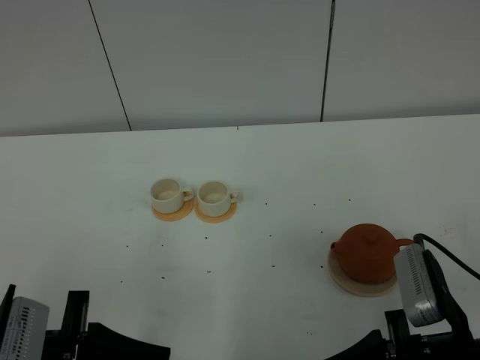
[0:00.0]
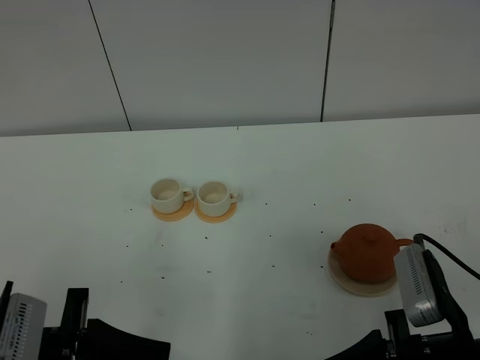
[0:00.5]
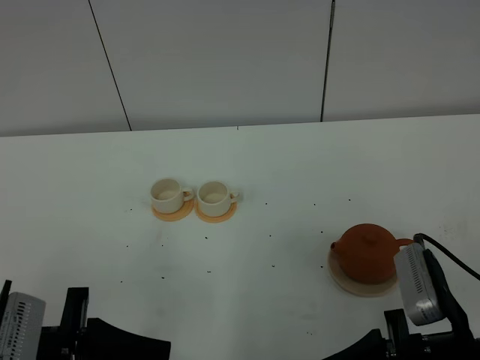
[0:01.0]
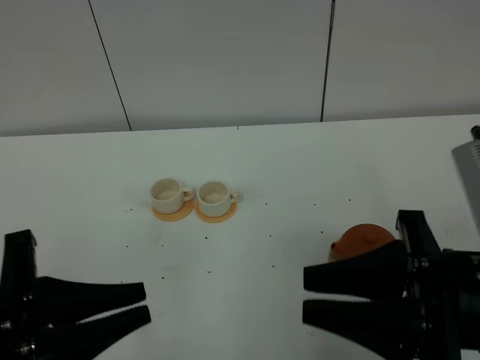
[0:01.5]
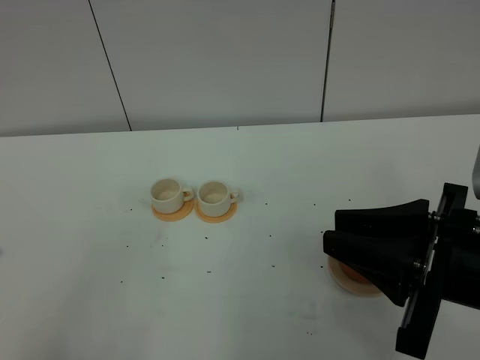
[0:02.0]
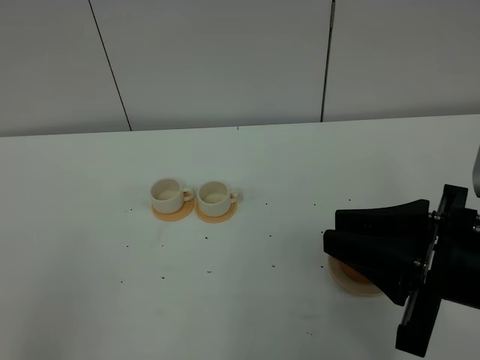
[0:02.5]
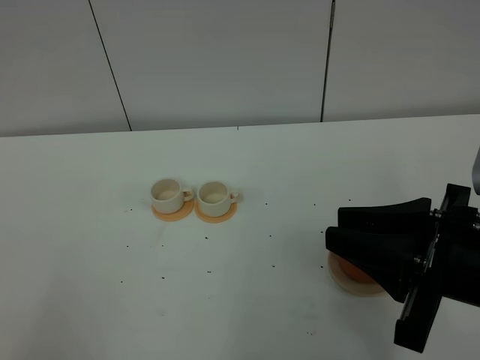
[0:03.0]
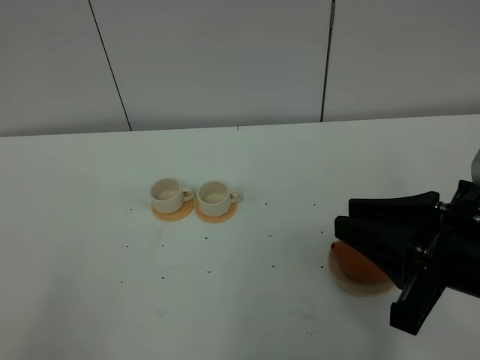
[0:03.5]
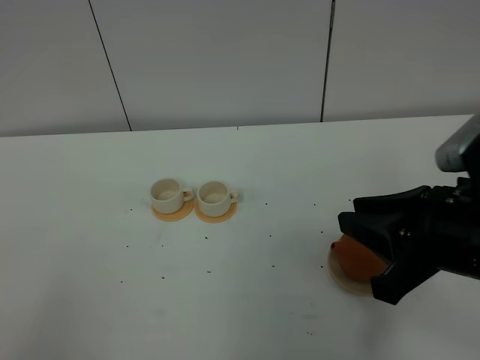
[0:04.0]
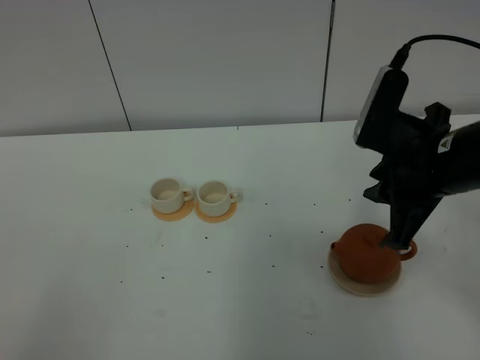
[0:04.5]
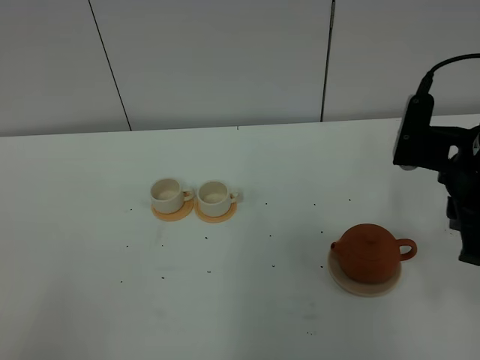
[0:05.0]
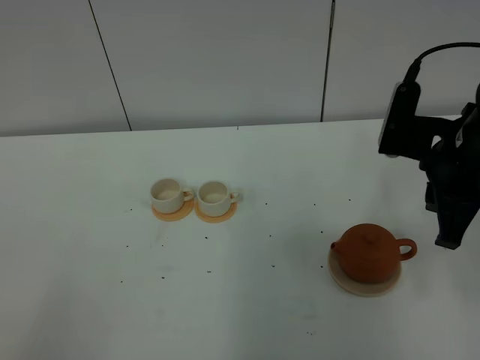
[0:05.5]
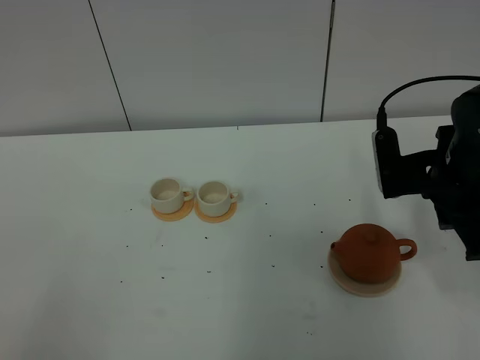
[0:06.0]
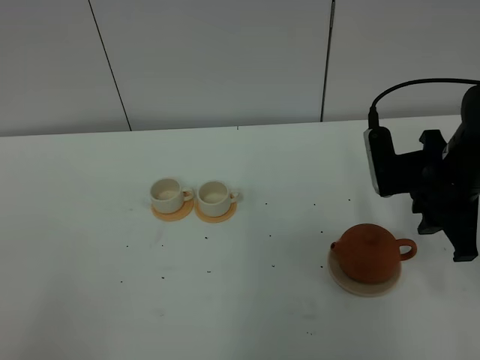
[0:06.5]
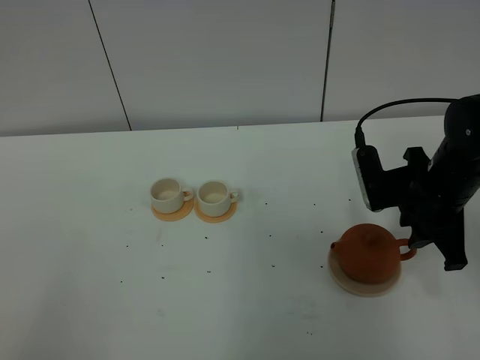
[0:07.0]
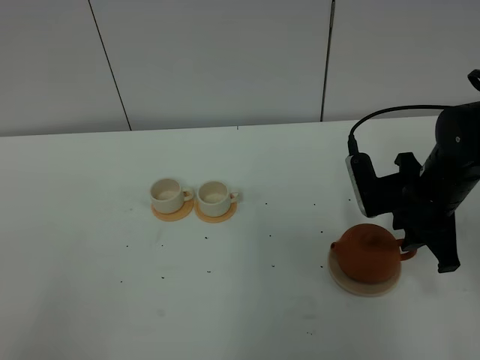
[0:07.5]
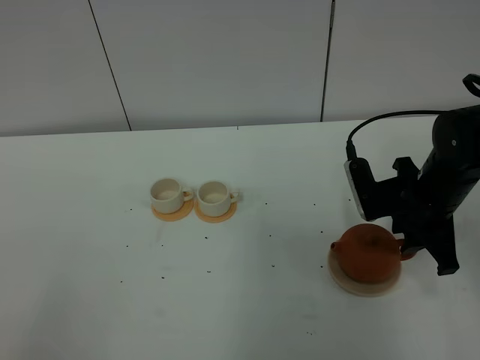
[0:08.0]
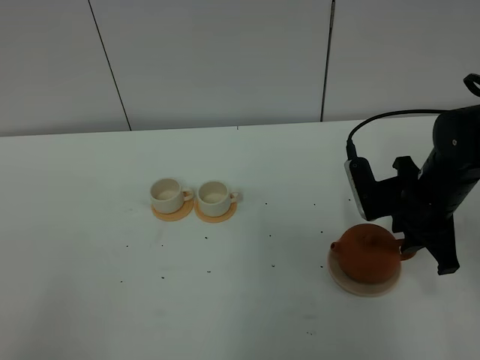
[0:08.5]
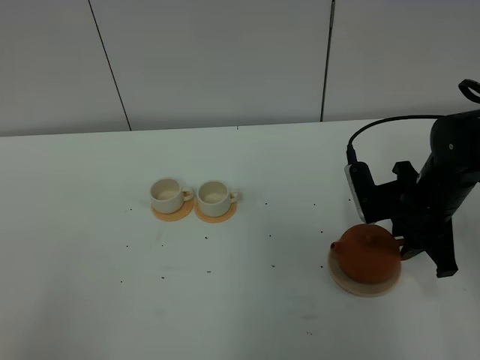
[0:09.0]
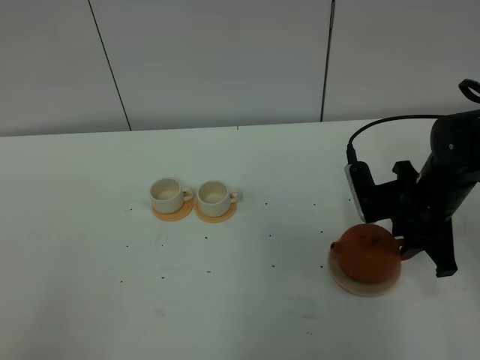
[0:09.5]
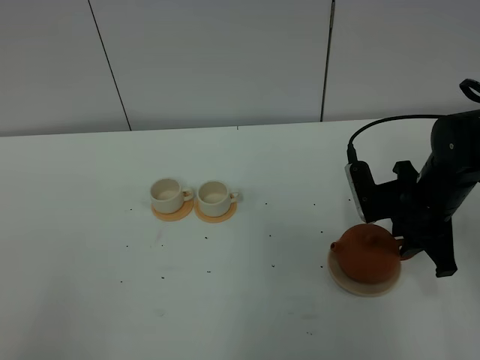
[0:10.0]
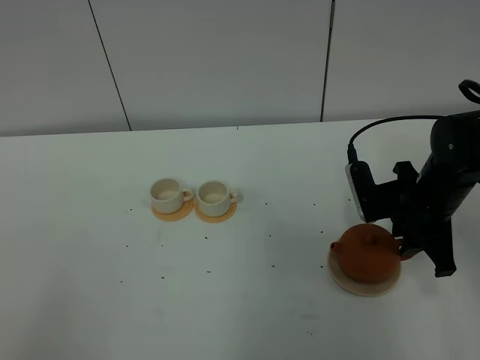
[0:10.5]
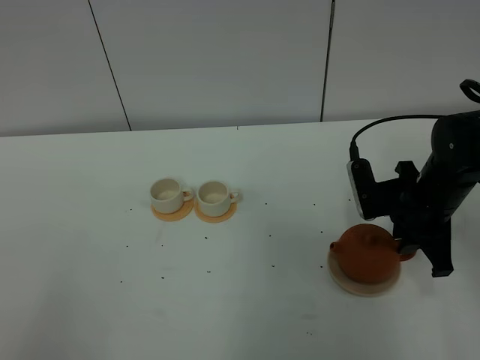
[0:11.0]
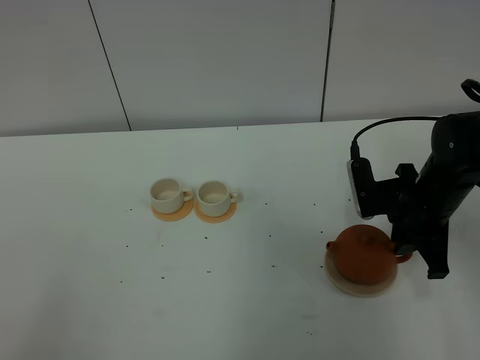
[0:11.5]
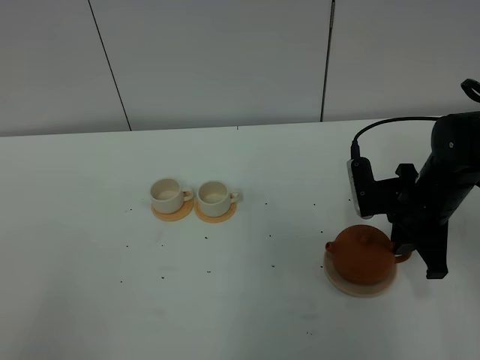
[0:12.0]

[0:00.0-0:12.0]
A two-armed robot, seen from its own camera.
Task of the whole recording: grasp the brown teapot and pour the tea into the two white teacups one by one, put the brown teapot back in its original place.
0:00.0 to 0:02.0: The right gripper travels upward by some 10 cm, and closes up. Meanwhile the left gripper travels upward and backward by roughly 15 cm, and closes its fingers.
0:04.0 to 0:06.0: The right gripper goes about 15 cm forward.
0:06.0 to 0:08.0: The right gripper shifts about 5 cm downward.
0:08.0 to 0:10.0: Both grippers stay put.
0:10.0 to 0:12.0: The right gripper closes its fingers.

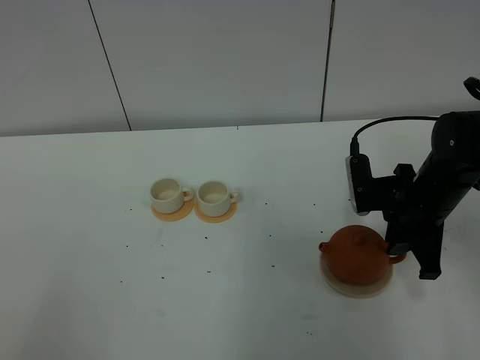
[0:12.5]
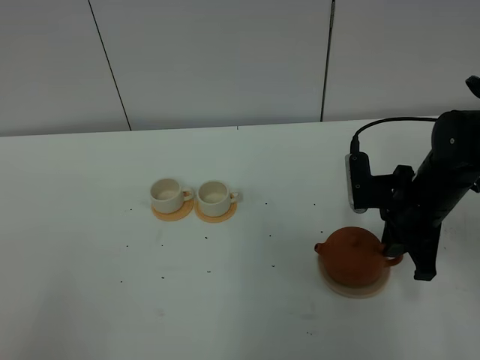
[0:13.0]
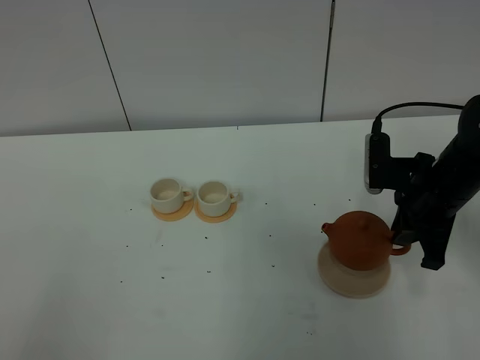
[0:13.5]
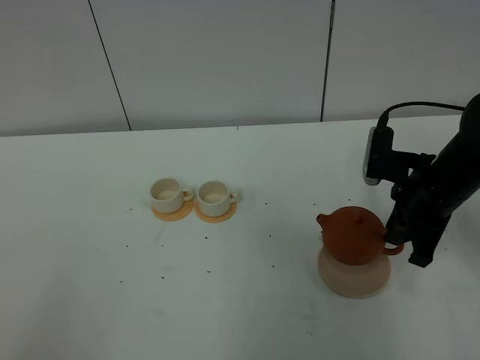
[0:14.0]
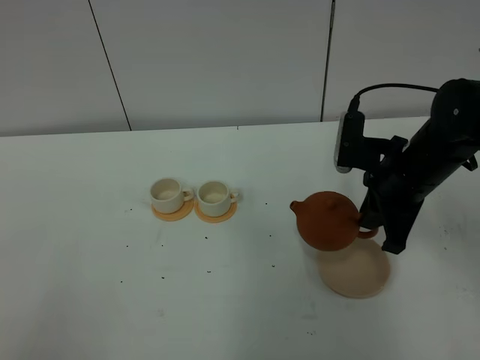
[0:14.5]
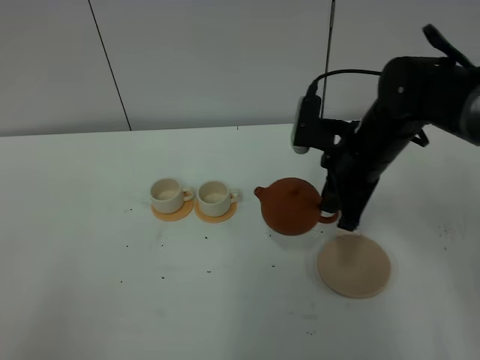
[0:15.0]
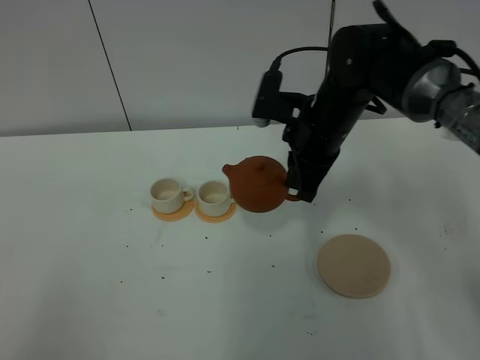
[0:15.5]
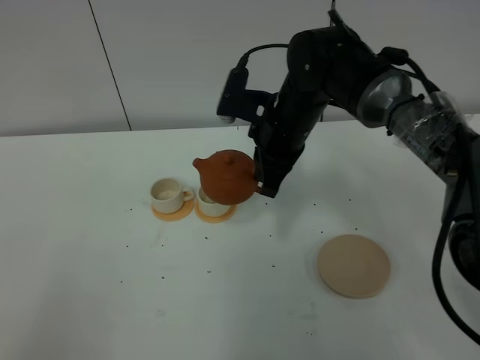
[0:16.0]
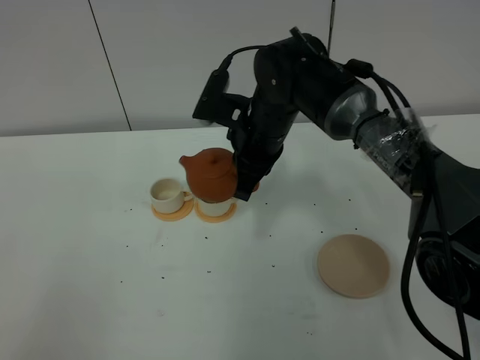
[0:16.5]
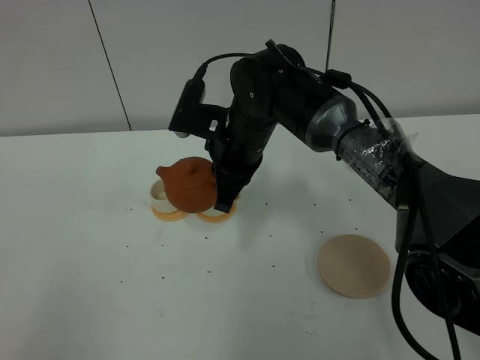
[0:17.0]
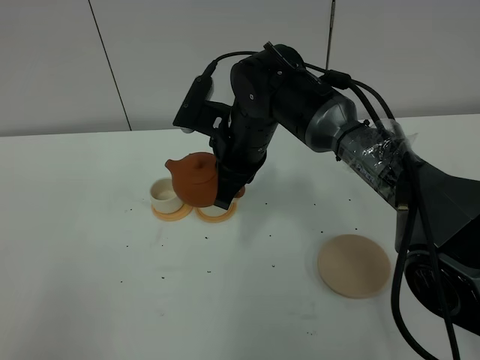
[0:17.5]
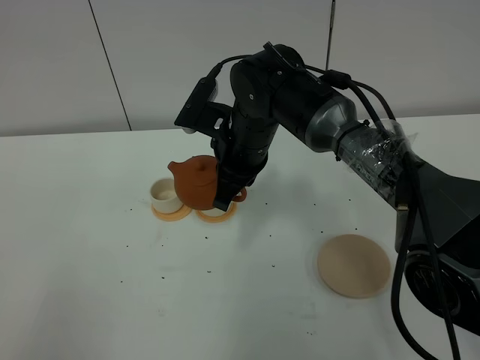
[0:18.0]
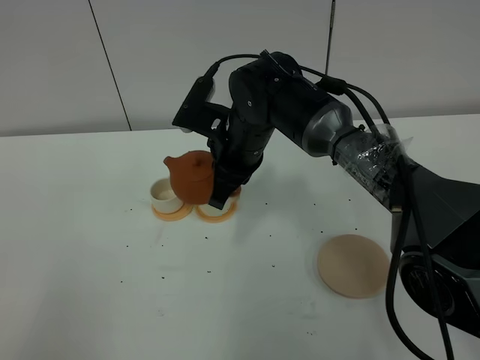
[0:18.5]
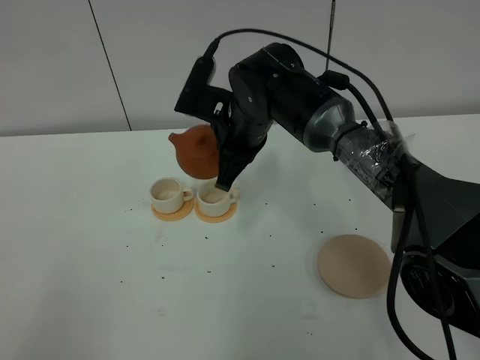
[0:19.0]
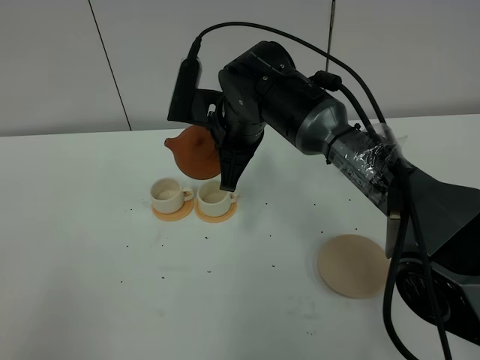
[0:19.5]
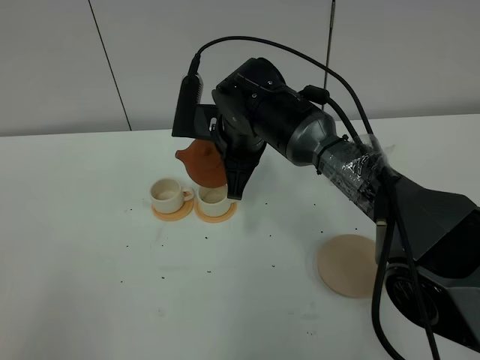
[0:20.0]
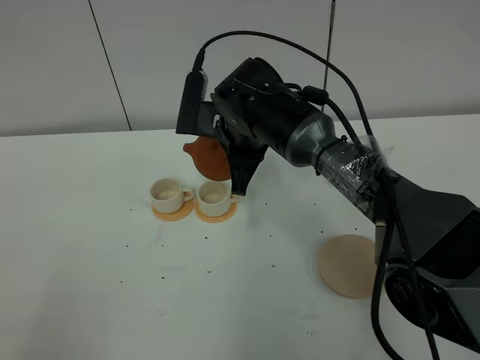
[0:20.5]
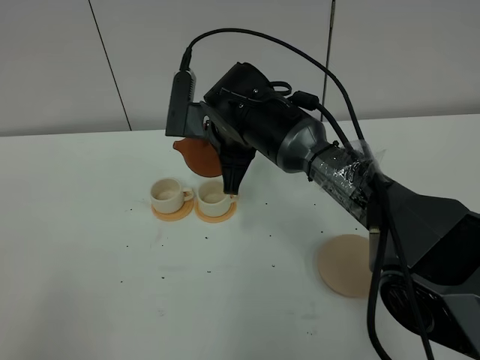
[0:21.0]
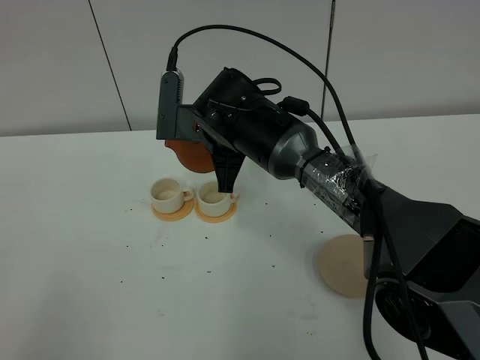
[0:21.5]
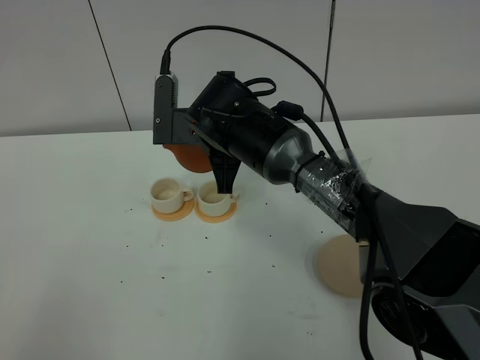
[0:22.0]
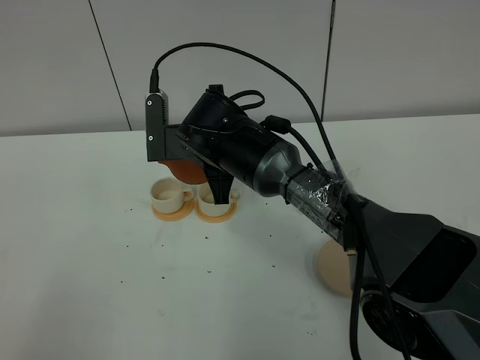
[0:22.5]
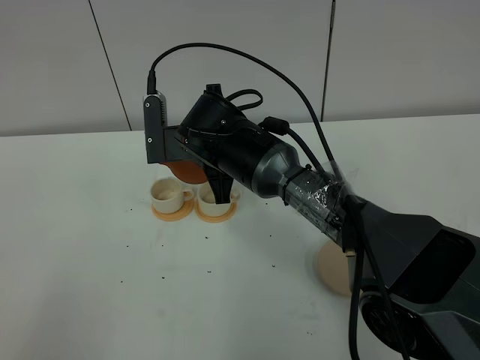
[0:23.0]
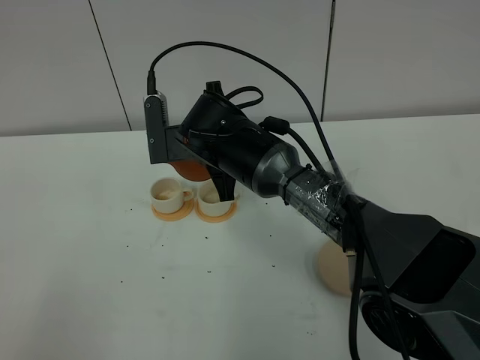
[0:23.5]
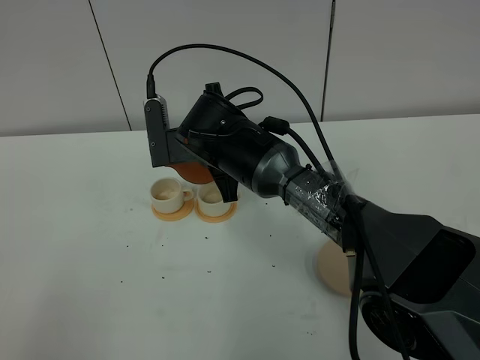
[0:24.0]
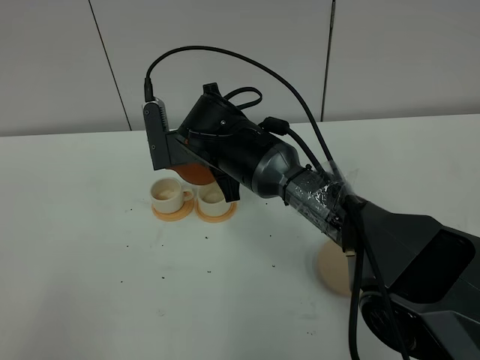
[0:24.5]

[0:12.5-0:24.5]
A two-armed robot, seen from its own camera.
Task of the whole recording: grasp the brown teapot and pour the tea into the two white teacups one by one, put the brown teapot back in its original place.
0:12.5 to 0:14.5: The right gripper ends up some 5 cm from where it was.
0:14.5 to 0:16.5: The right gripper heads to the left, covering some 15 cm.
0:16.5 to 0:18.5: The grippers move only a little.
0:22.5 to 0:24.5: The grippers move only a little.

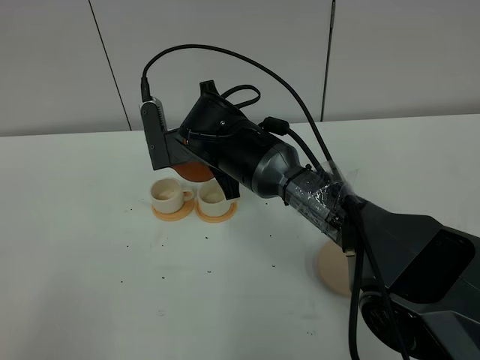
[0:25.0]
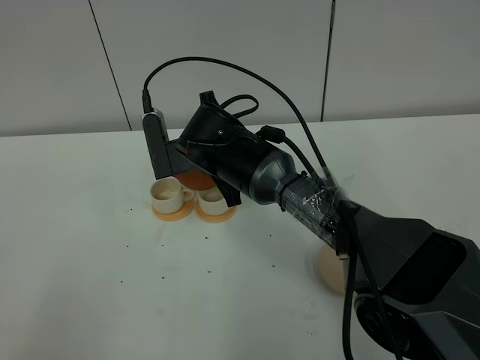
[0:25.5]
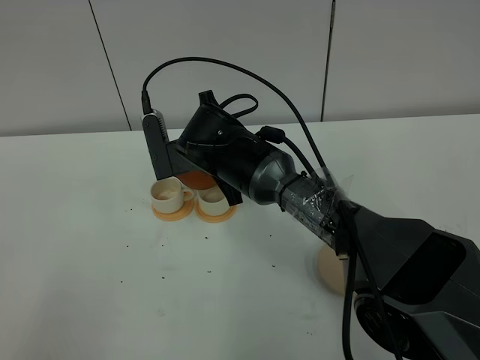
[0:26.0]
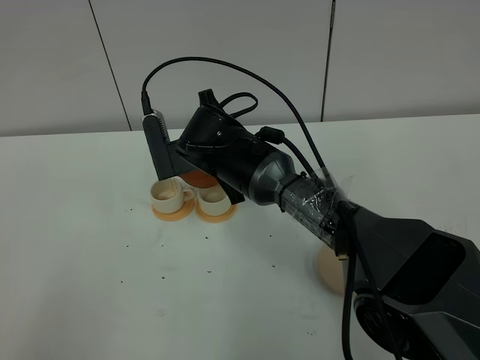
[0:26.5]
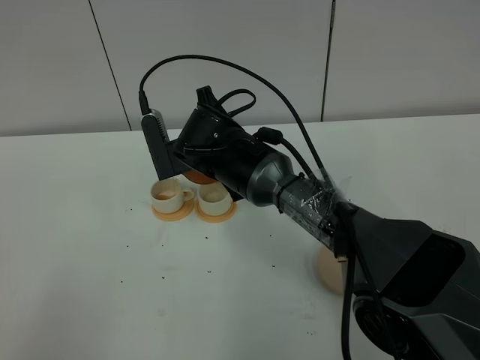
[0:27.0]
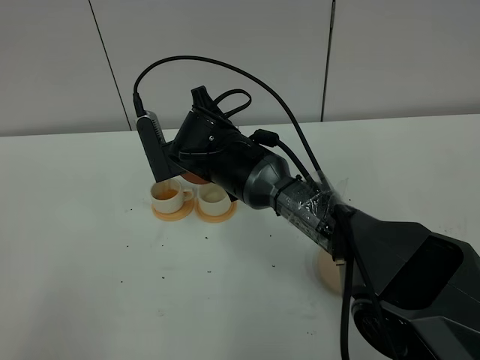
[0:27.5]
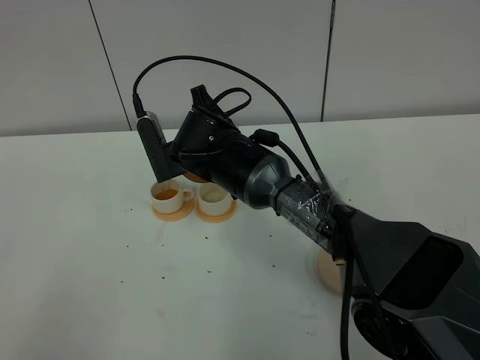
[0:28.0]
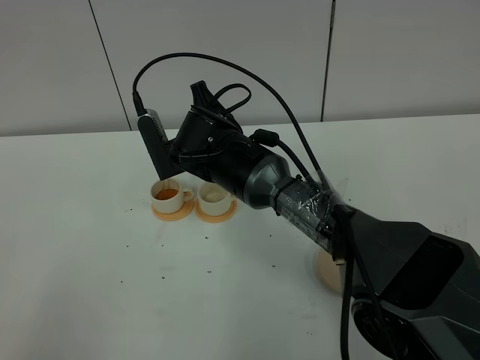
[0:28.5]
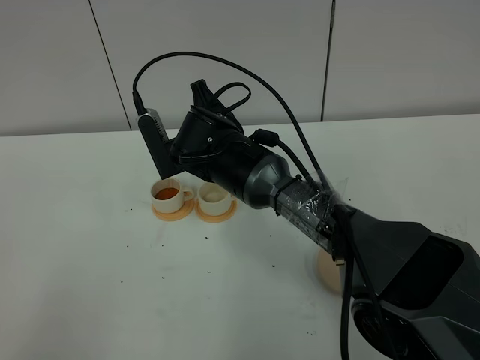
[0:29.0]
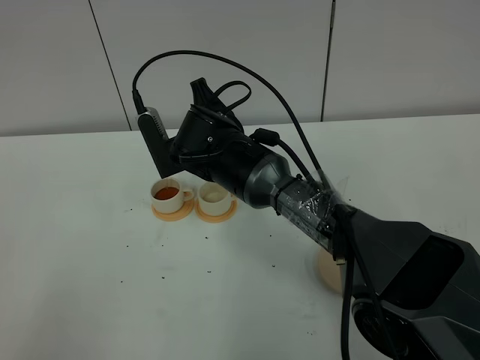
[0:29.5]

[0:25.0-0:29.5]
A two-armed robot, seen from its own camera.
Task of the whole recording: grasp the brown teapot and pour the tea into the two white teacups one by one, put the brown teapot back in its original place.
0:25.0 to 0:29.5: The grippers move only a little.
